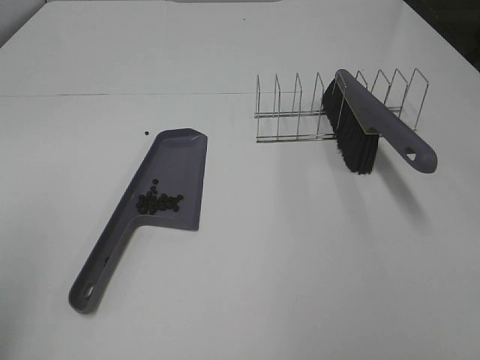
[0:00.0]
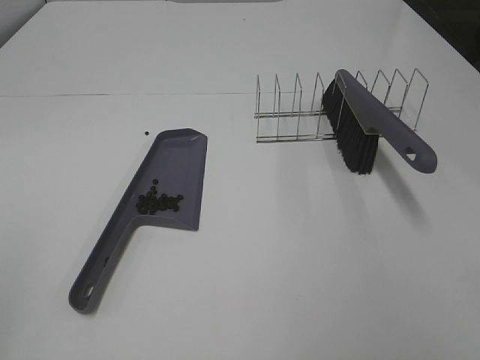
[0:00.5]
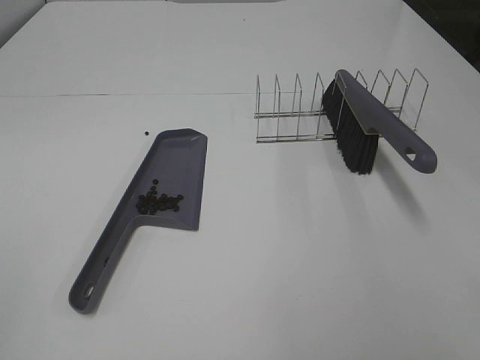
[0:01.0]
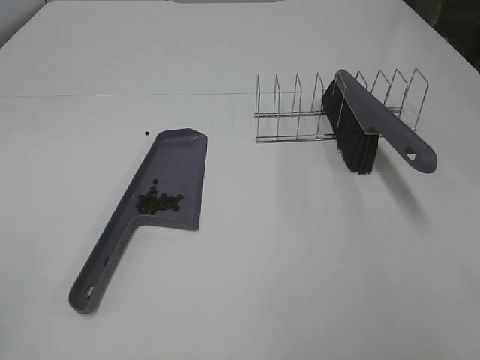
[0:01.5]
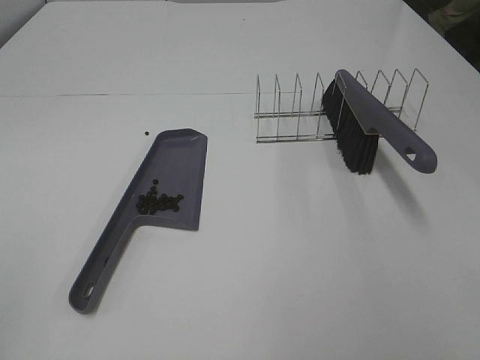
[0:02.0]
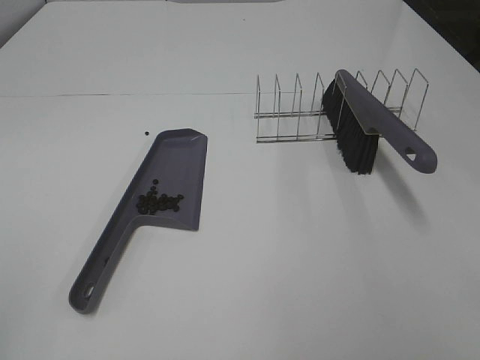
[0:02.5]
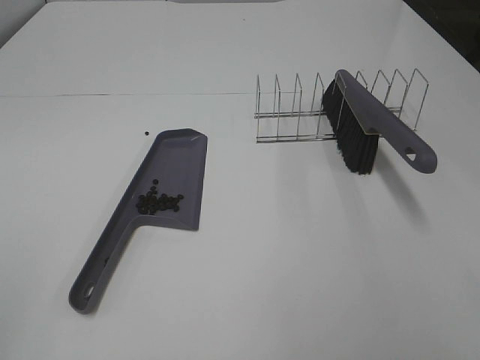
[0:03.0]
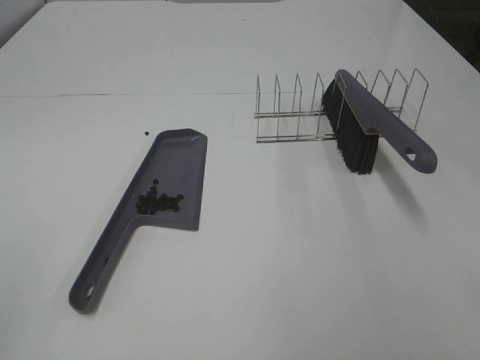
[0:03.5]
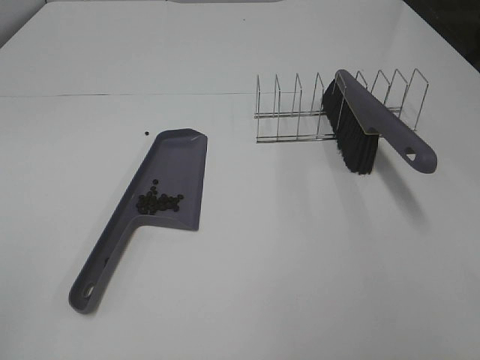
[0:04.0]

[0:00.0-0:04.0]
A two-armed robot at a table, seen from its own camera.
Task of the whole recording: Sweep Coffee Bean.
0:02.0 to 0:04.0: Both grippers stay put.
